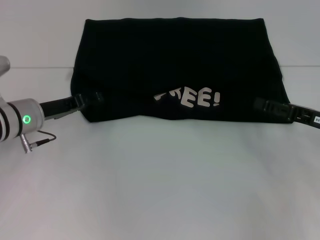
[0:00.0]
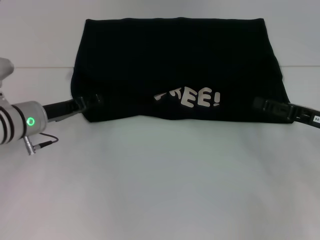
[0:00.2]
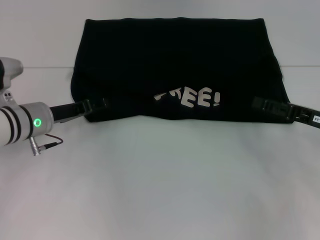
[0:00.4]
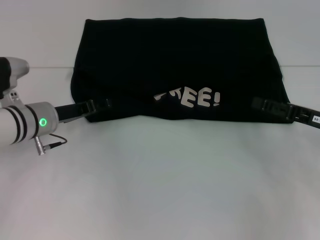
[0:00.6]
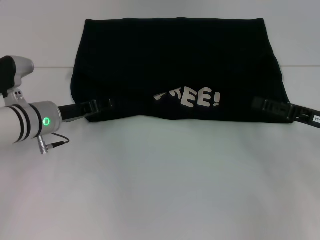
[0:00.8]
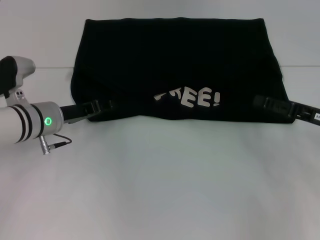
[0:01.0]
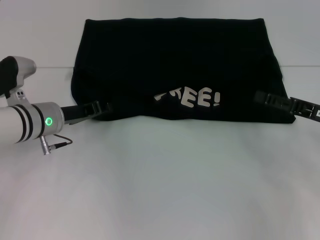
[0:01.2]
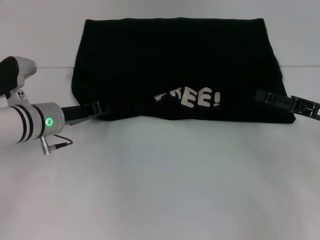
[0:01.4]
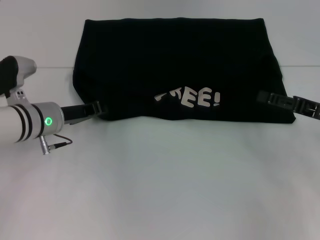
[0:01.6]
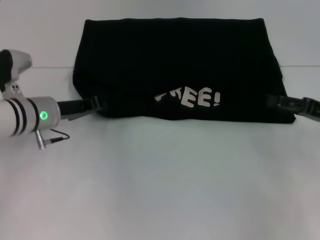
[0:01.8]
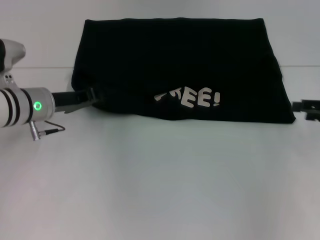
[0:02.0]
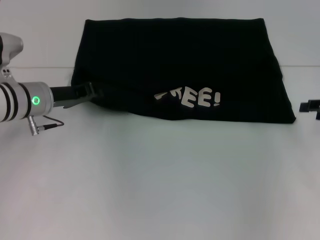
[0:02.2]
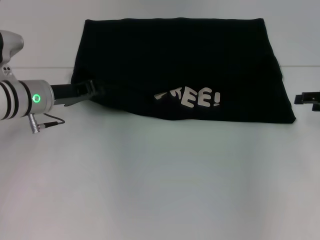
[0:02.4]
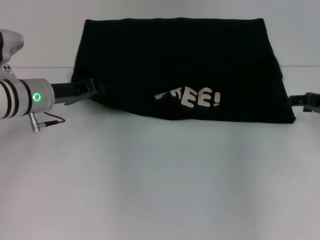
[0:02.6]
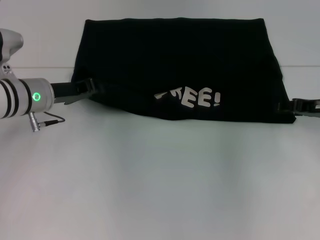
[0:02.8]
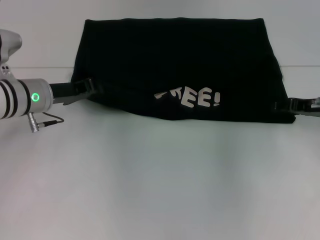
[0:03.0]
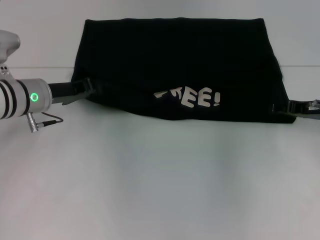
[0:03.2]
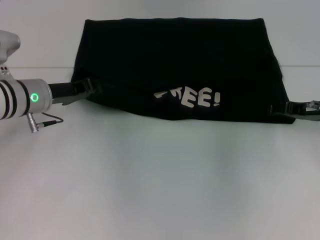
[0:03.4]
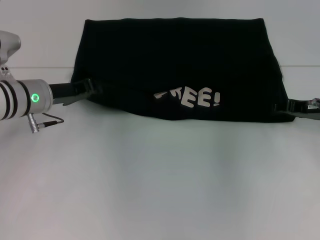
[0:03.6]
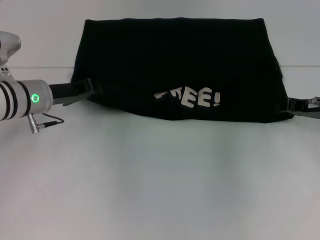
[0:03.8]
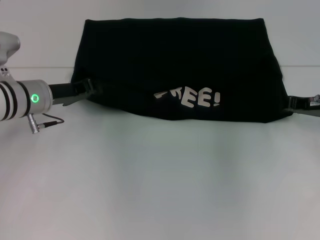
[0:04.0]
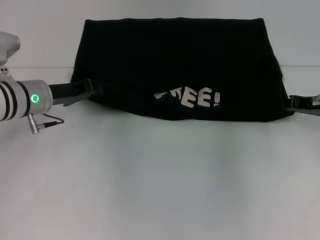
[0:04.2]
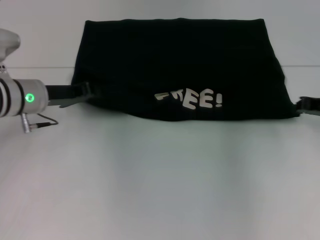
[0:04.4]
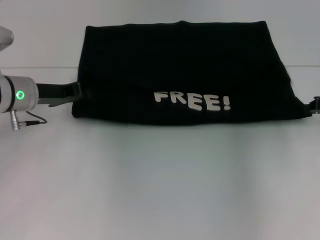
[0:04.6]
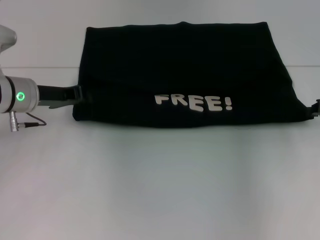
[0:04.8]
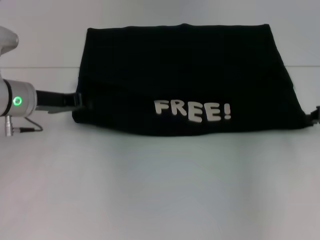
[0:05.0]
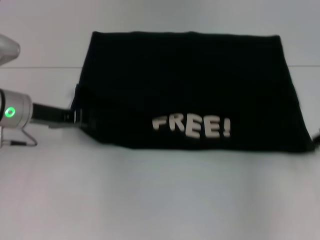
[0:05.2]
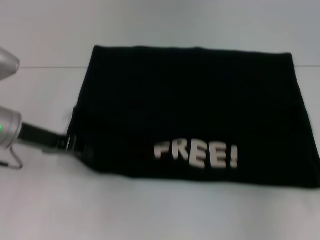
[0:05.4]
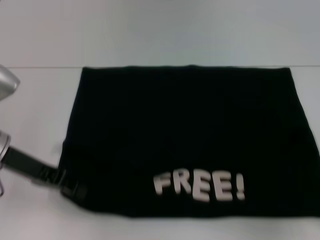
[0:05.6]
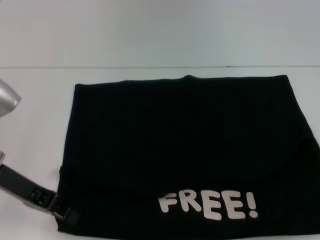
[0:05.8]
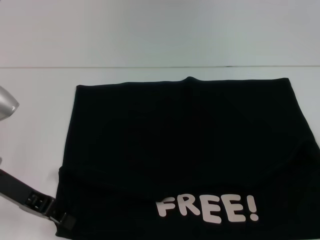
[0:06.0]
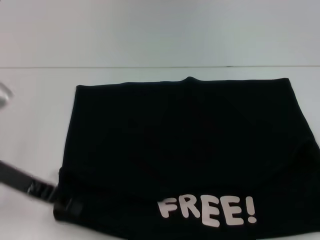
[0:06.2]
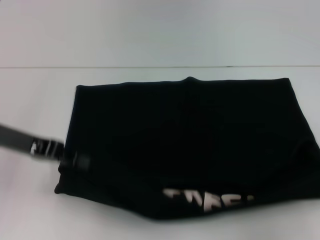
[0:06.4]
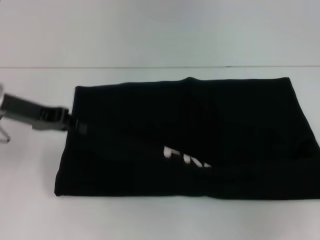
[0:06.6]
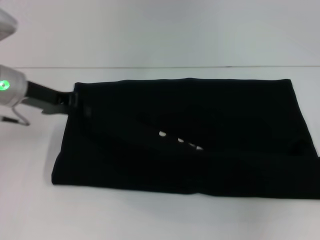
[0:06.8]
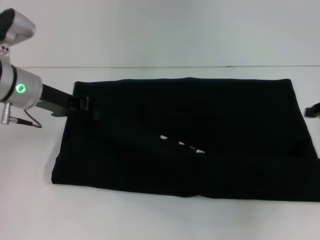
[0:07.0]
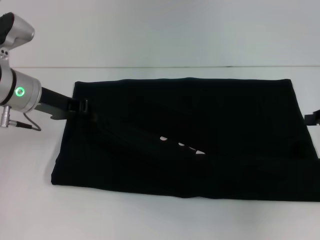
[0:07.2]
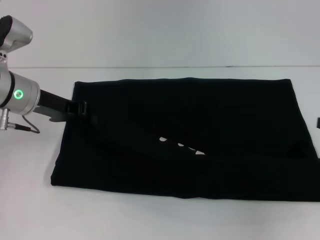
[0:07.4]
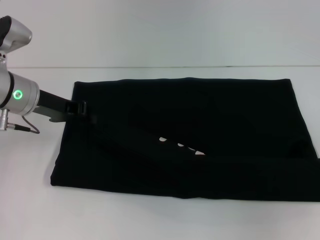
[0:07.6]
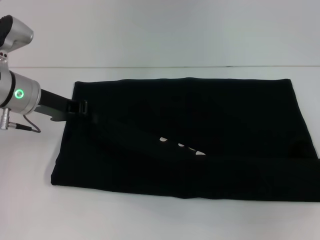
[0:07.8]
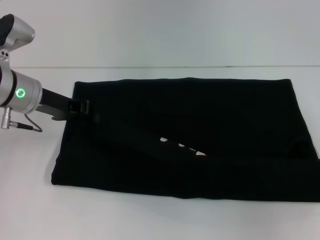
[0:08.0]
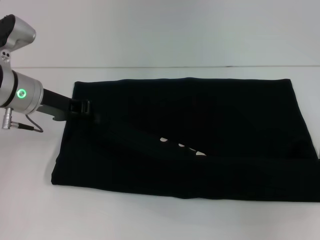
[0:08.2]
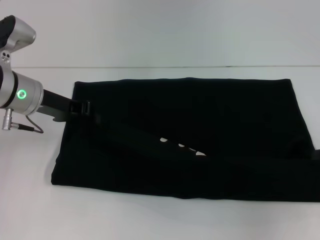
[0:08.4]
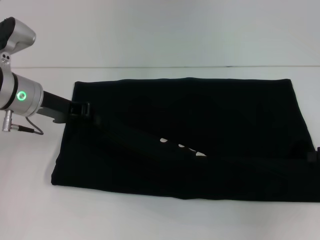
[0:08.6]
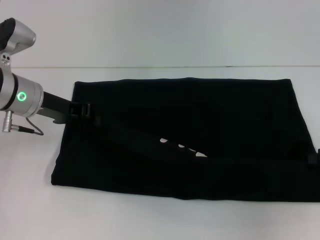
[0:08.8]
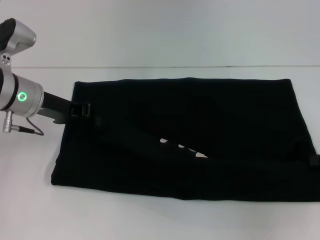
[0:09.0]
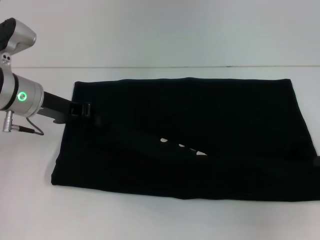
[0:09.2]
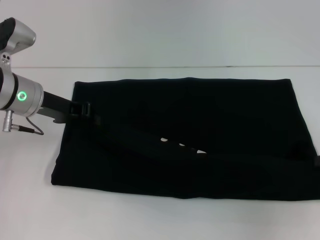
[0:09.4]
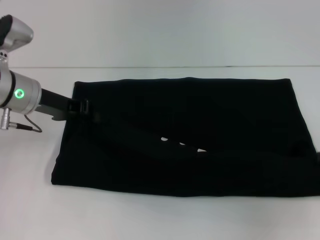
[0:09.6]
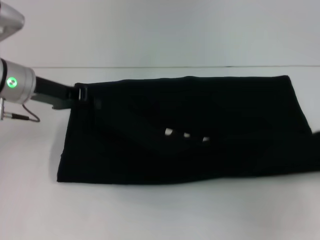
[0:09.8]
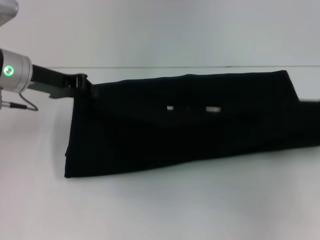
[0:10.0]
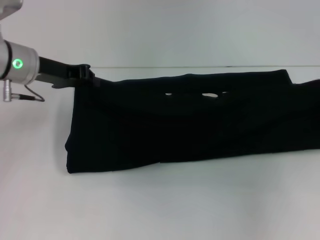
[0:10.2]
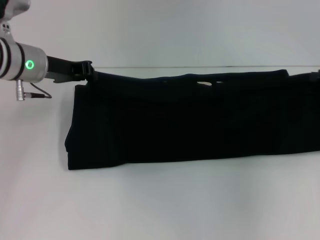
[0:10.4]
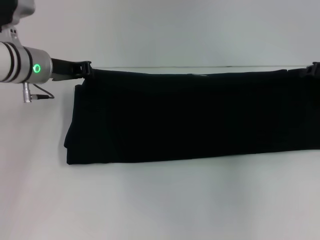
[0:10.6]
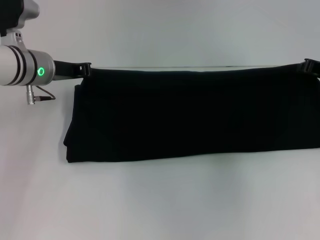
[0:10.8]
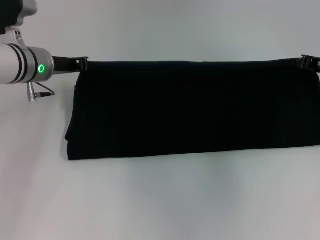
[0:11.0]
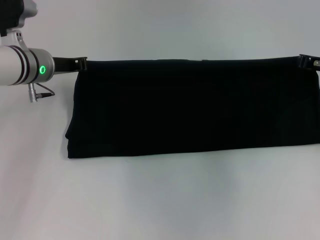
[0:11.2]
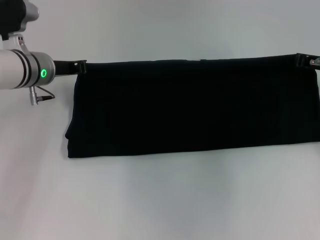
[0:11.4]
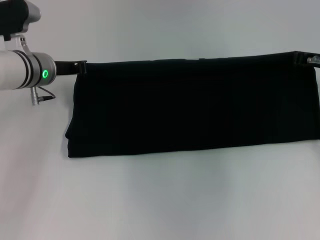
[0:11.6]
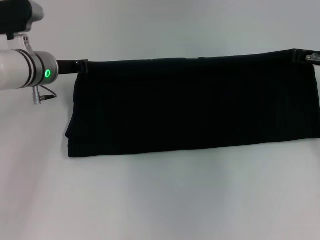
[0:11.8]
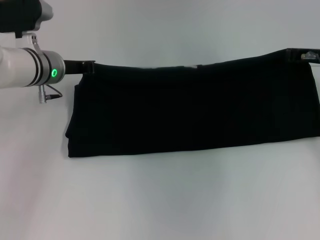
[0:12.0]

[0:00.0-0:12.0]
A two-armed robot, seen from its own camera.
Step, 0:00.0 to 0:05.8: Pull the clothes with your left hand.
Step, 0:00.0 to 0:05.8: Pull the clothes with your right hand.
0:00.0 to 0:01.6: The left gripper closes.
0:01.6 to 0:03.0: The right gripper heads forward, covering about 5 cm.
0:03.0 to 0:04.4: The right gripper closes up.
0:04.4 to 0:06.0: The right gripper moves backward and to the right, about 15 cm. The left gripper goes approximately 10 cm backward.
0:06.0 to 0:07.6: The right gripper goes roughly 5 cm forward, while the left gripper is displaced forward by about 10 cm.
0:07.6 to 0:09.0: The grippers stay close to where they were, moving slightly.
0:09.0 to 0:10.4: The right gripper shifts about 10 cm forward, and closes.
0:10.4 to 0:12.0: The right gripper heads to the left and forward, covering some 10 cm.

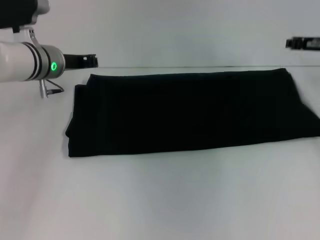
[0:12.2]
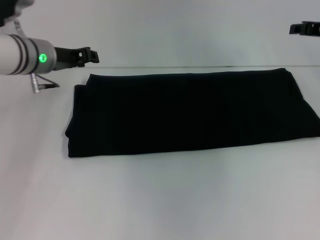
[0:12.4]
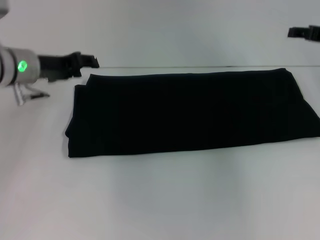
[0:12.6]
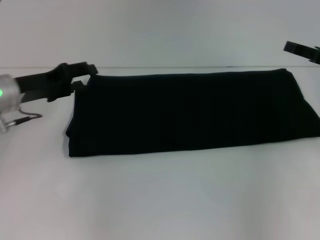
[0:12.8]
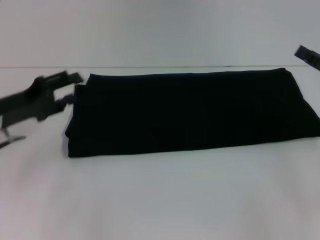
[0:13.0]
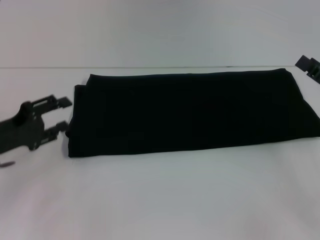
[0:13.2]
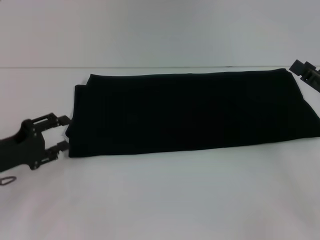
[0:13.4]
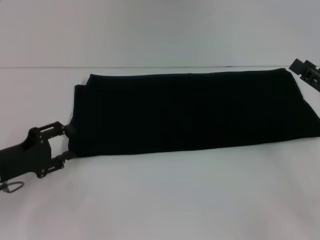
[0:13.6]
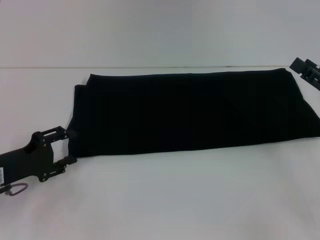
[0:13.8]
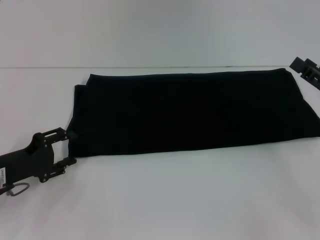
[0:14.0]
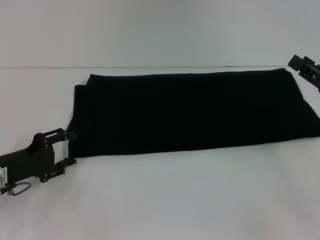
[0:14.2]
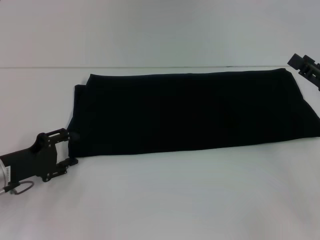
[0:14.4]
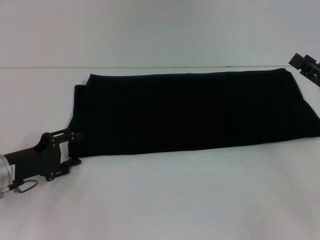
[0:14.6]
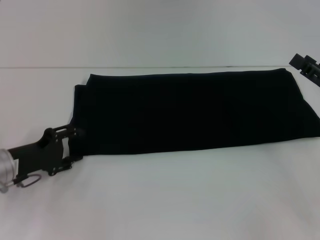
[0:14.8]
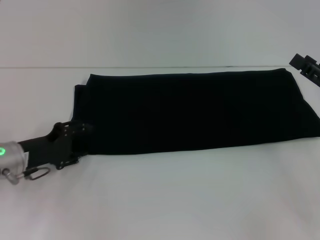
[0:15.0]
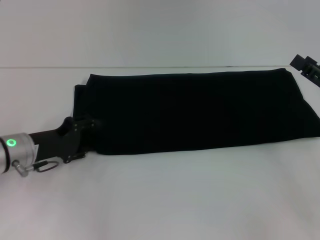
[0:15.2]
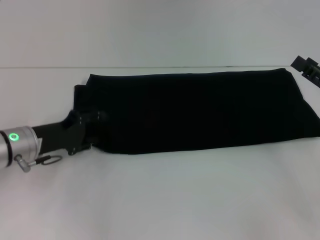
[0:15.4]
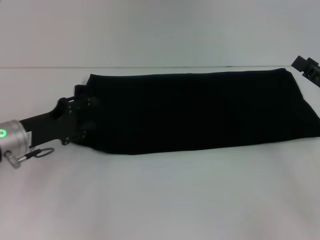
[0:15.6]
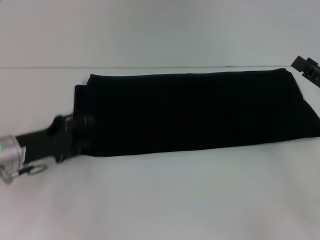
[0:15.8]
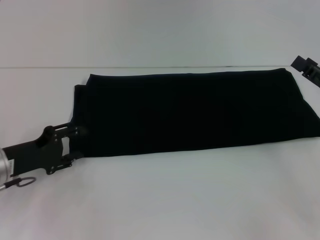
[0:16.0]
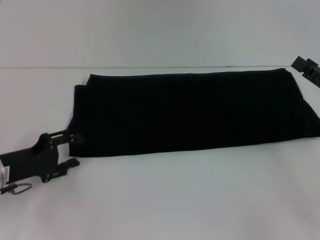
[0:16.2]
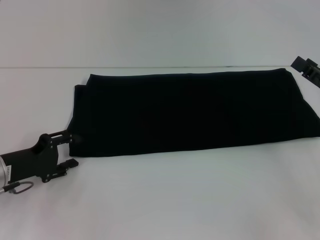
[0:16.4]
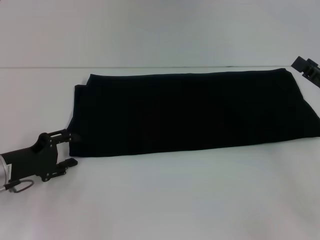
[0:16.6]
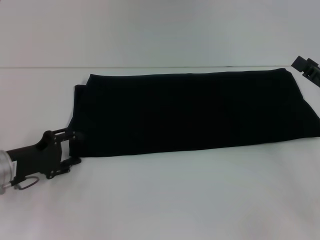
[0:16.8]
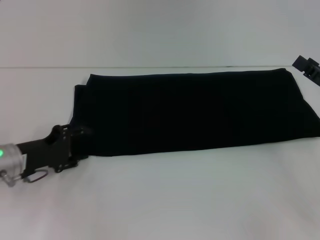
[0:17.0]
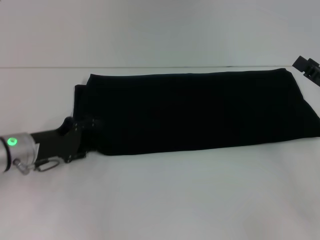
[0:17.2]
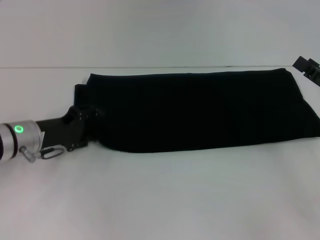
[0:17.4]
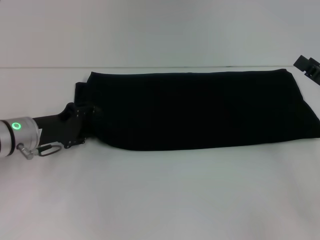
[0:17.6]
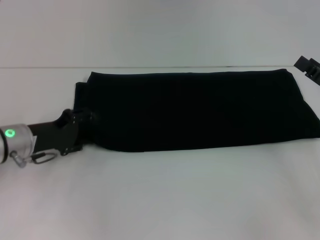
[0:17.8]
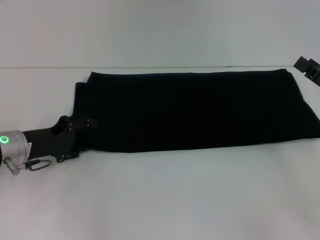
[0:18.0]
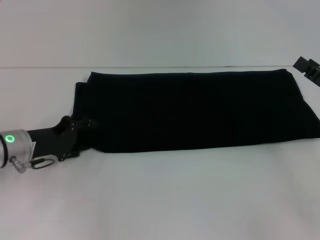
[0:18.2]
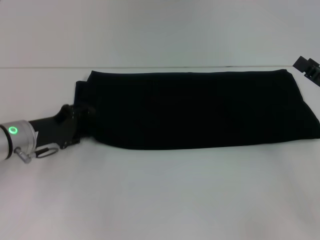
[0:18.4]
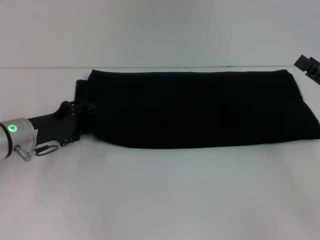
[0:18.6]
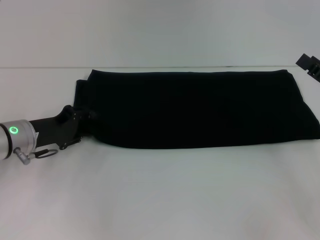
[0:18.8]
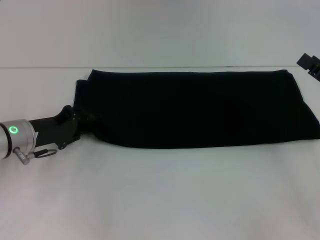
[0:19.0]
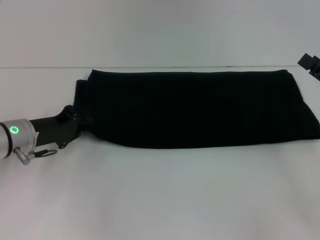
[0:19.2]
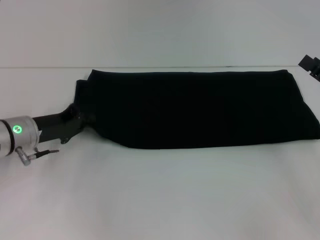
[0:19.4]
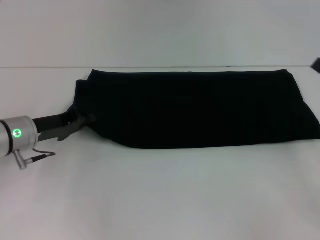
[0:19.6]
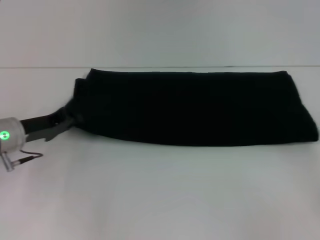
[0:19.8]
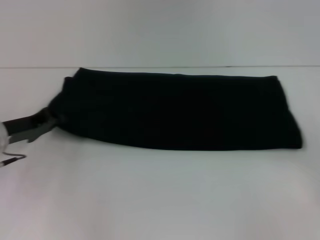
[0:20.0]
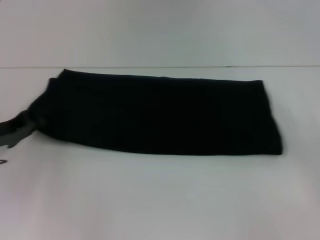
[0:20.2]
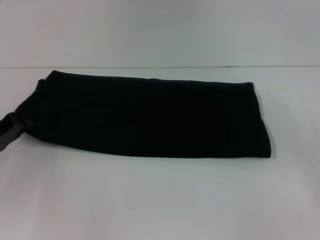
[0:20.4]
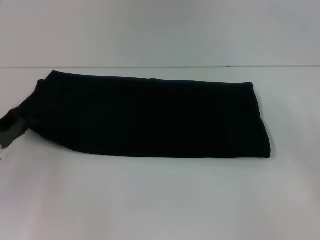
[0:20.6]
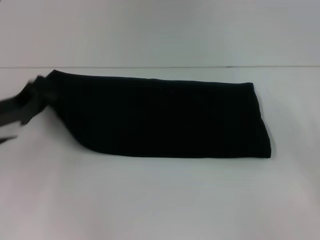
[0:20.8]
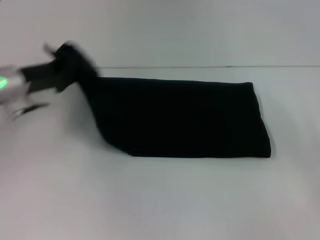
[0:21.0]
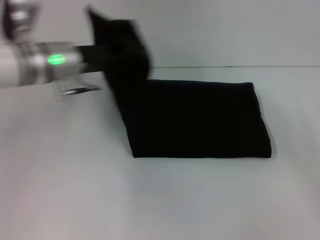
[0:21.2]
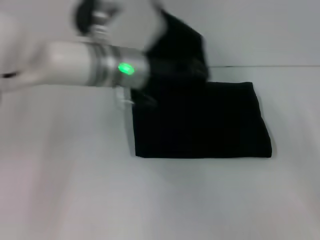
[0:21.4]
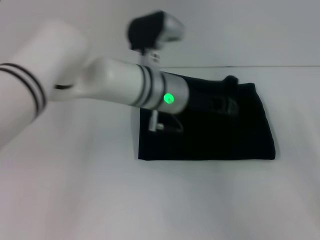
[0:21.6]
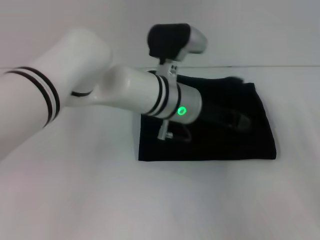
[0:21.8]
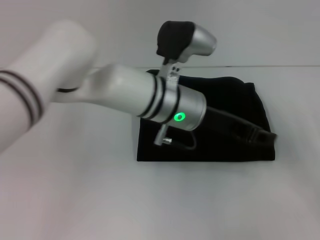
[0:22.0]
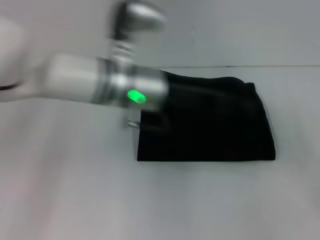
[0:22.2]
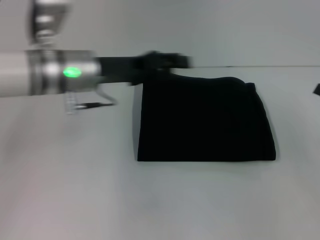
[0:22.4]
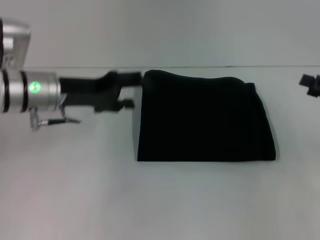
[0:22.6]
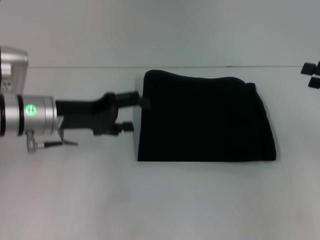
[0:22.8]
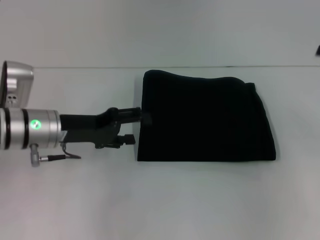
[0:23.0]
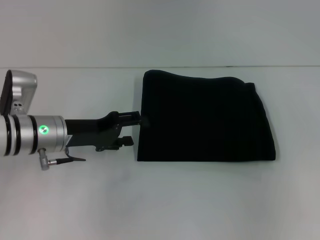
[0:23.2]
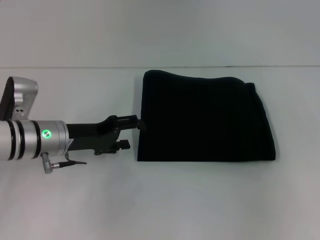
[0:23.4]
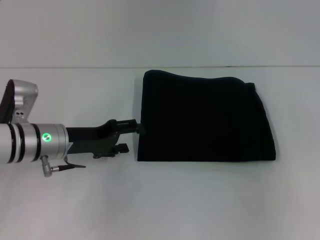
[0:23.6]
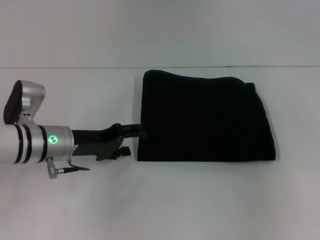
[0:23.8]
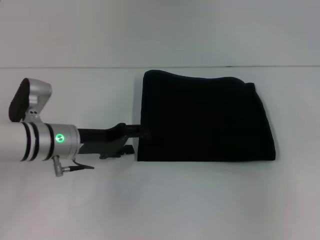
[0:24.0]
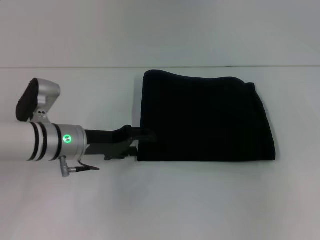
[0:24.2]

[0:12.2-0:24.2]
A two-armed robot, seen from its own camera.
Step, 0:12.2 to 0:22.0: Fold the clothes with your left hand.
0:12.2 to 0:13.8: The right gripper goes roughly 15 cm backward, and opens; the left gripper travels backward, to the left and downward by roughly 20 cm, and opens.
0:13.8 to 0:15.2: The left gripper moves forward, roughly 5 cm.
0:15.2 to 0:16.6: The left gripper moves roughly 5 cm.
0:16.6 to 0:18.2: The left gripper moves approximately 5 cm.
0:18.2 to 0:19.8: The left gripper closes up. Meanwhile the right gripper heads to the right, covering approximately 5 cm.
0:19.8 to 0:21.2: The left gripper heads upward, to the right and forward, covering approximately 15 cm.
0:21.2 to 0:22.6: The left gripper reaches some 20 cm to the right, then returns, and opens. The right gripper is displaced forward by roughly 5 cm.
0:22.6 to 0:24.2: The right gripper heads upward, covering some 10 cm. The left gripper moves downward, roughly 10 cm.
